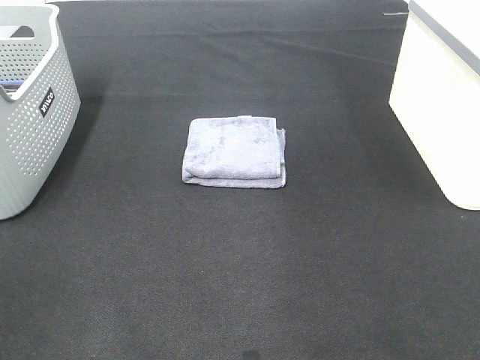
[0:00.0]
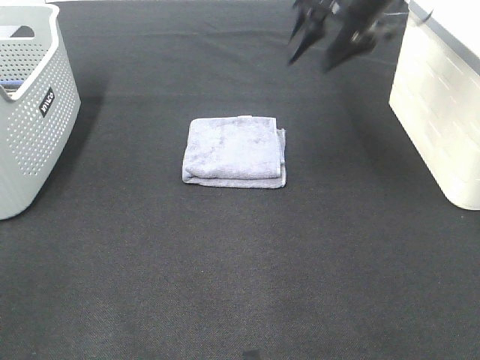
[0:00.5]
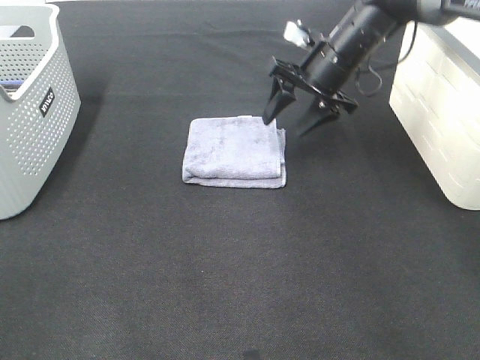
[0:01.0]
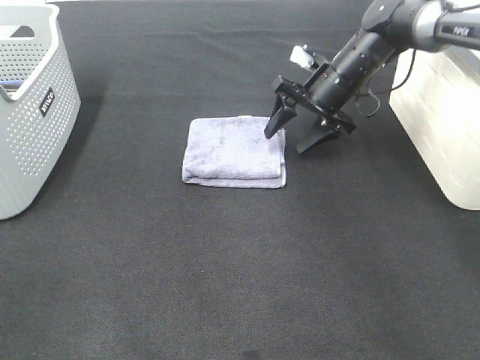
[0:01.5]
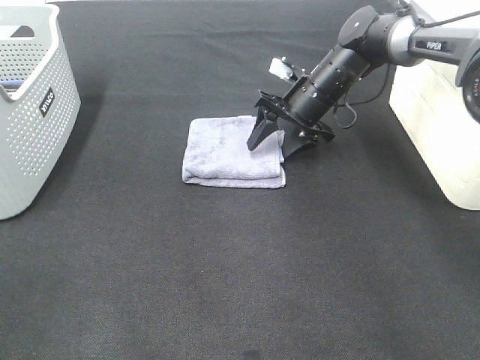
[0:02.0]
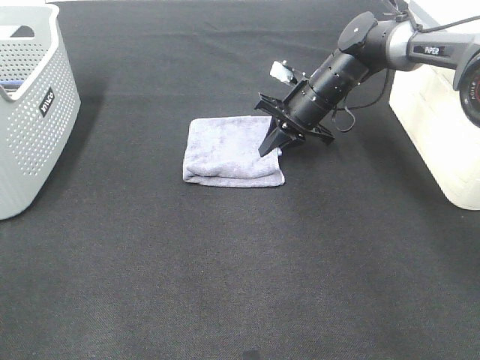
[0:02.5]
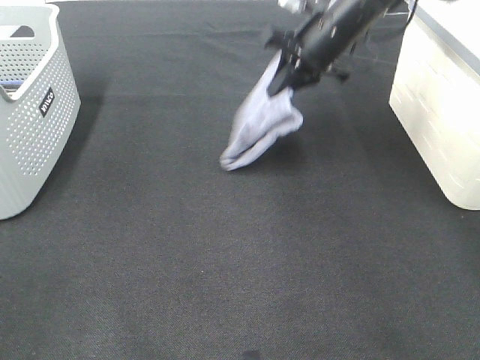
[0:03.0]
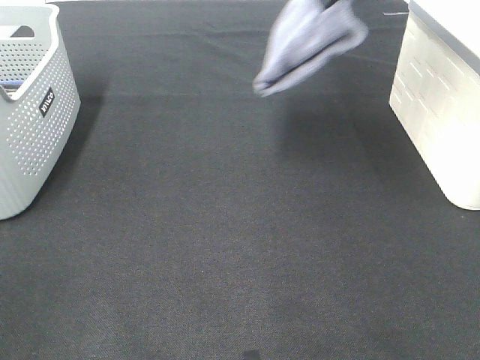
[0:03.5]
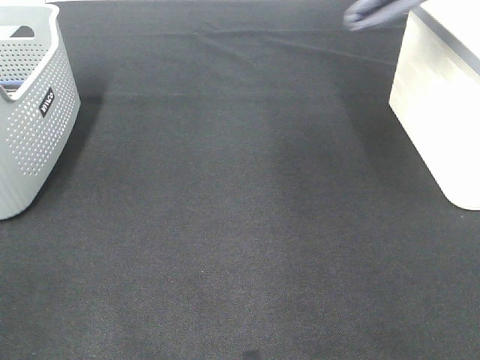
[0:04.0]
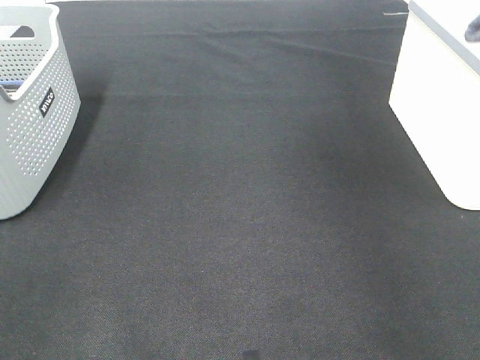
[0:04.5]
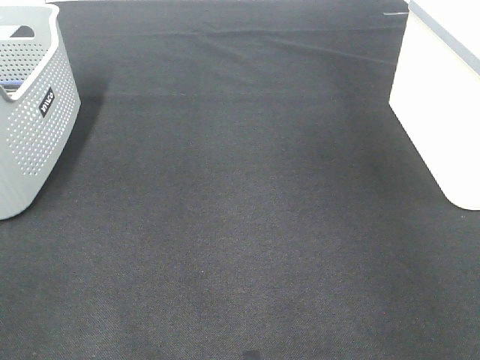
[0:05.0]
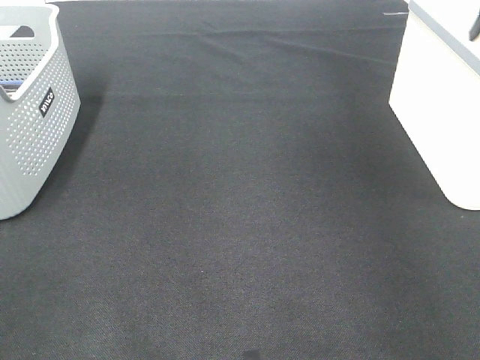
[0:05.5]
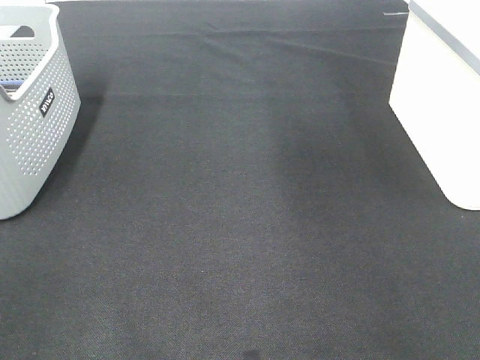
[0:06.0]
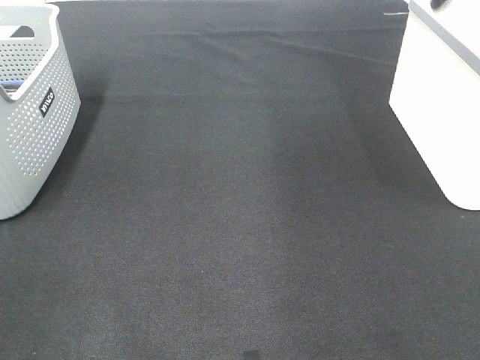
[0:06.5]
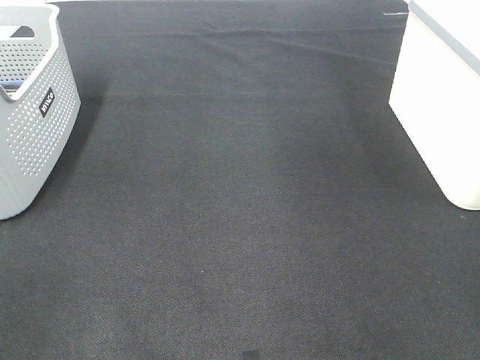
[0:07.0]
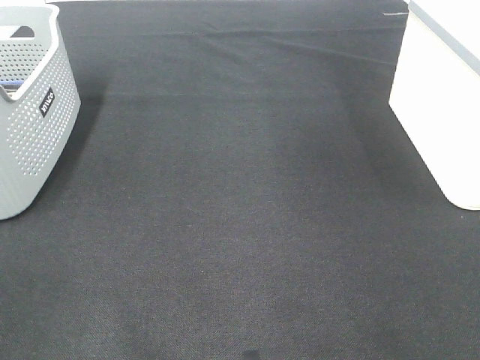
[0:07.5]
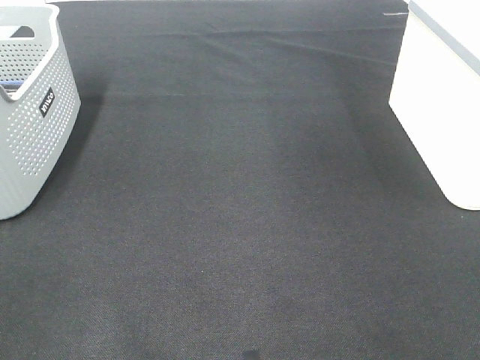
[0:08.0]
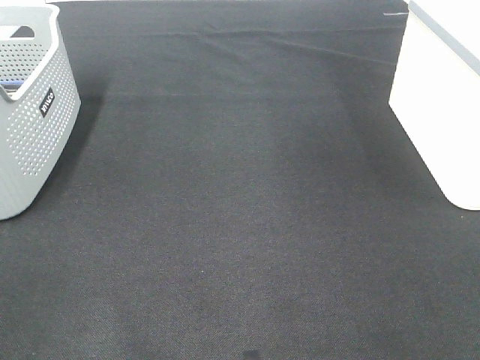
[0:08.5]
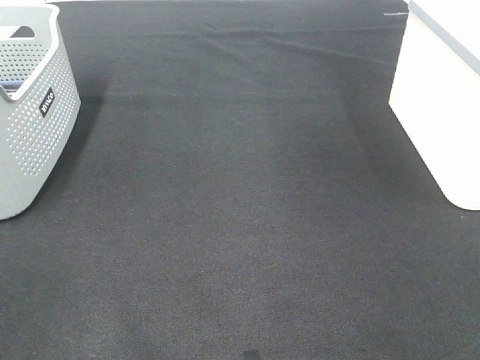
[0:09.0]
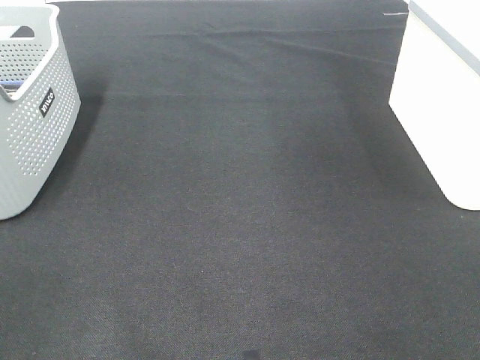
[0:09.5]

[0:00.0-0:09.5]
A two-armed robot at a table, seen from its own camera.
Step, 0:00.0 to 0:02.5: Right hand: grab the folded grey towel.
Step, 0:03.0 to 0:05.0: Right hand: place the grey towel in right basket.
0:00.0 to 0:02.0: The right gripper is displaced downward and forward by about 30 cm.
0:02.0 to 0:04.0: The right gripper moves upward and to the right, about 35 cm, and closes.
0:04.0 to 0:05.5: The right gripper shifts approximately 15 cm downward, to the right and forward, and opens.

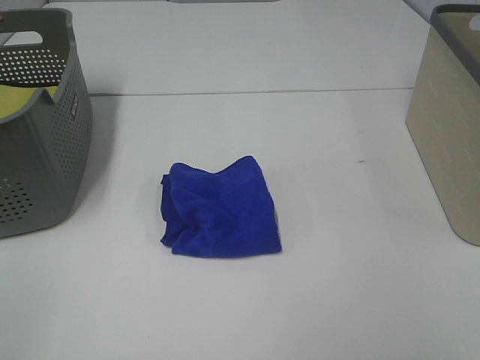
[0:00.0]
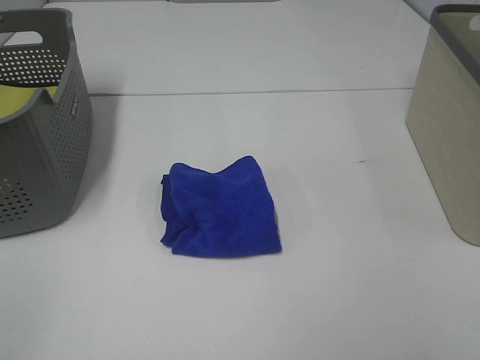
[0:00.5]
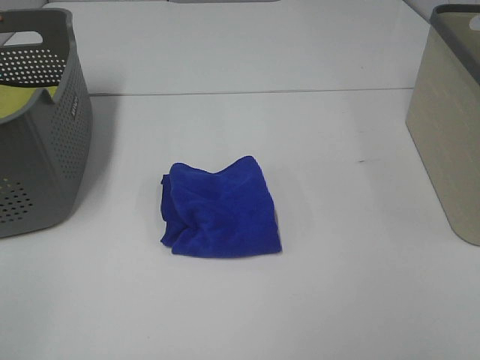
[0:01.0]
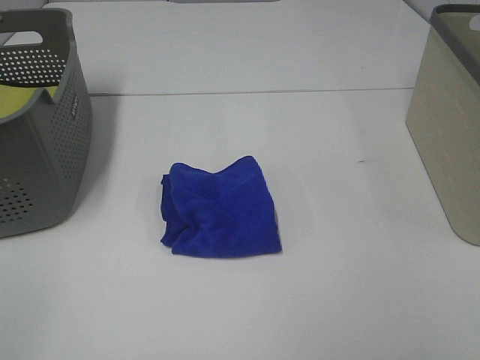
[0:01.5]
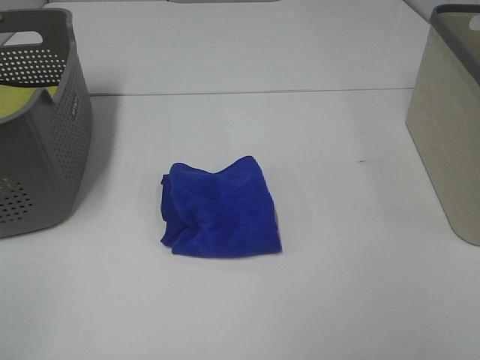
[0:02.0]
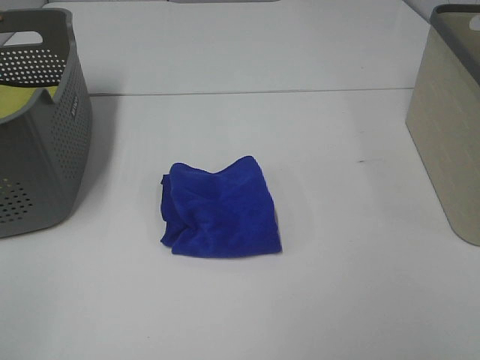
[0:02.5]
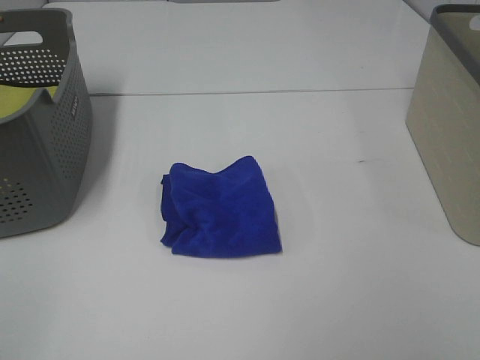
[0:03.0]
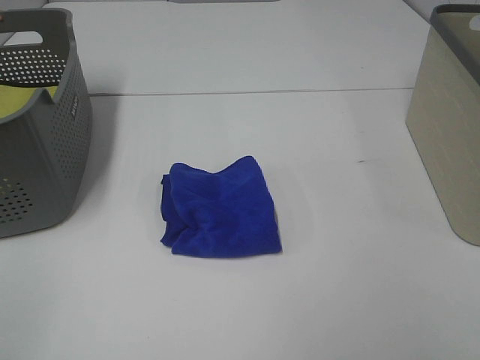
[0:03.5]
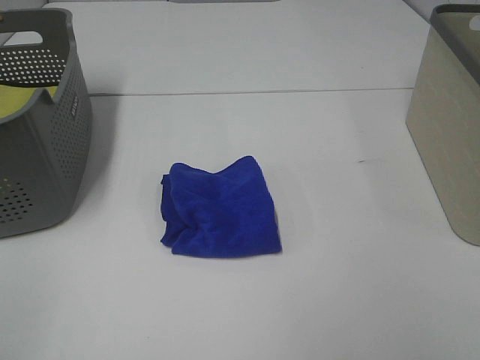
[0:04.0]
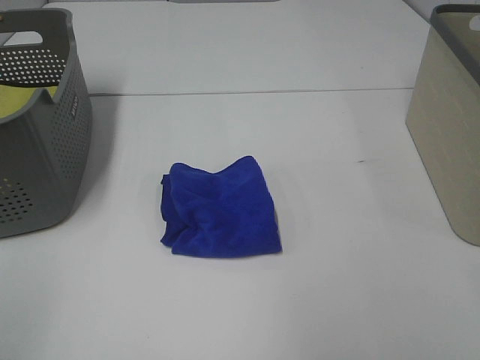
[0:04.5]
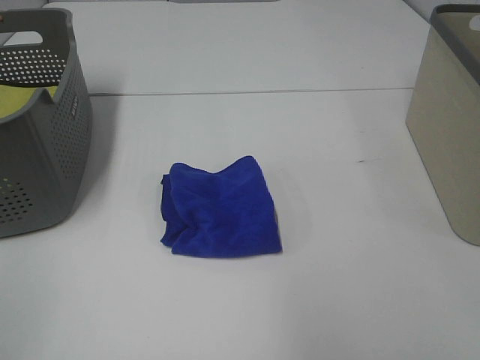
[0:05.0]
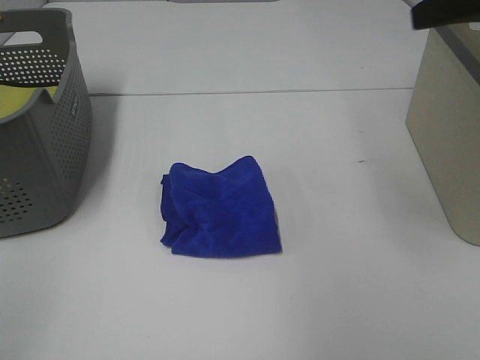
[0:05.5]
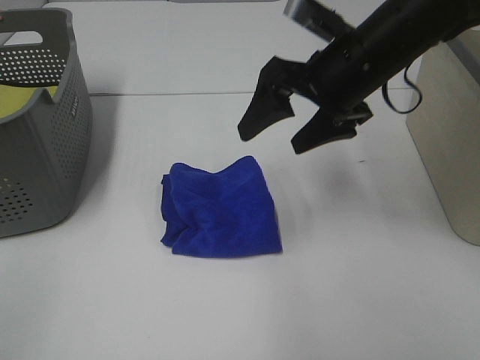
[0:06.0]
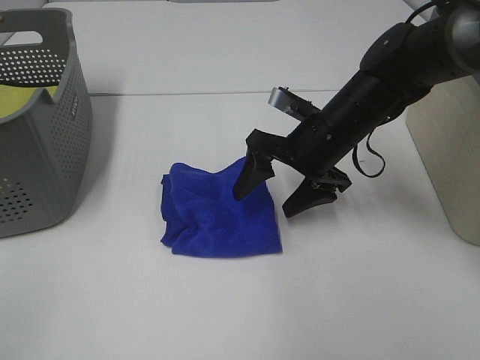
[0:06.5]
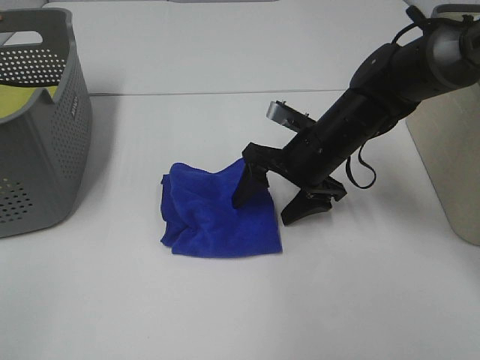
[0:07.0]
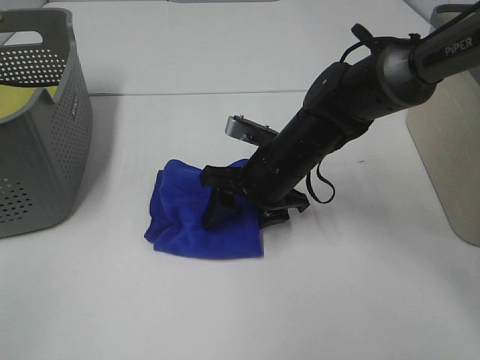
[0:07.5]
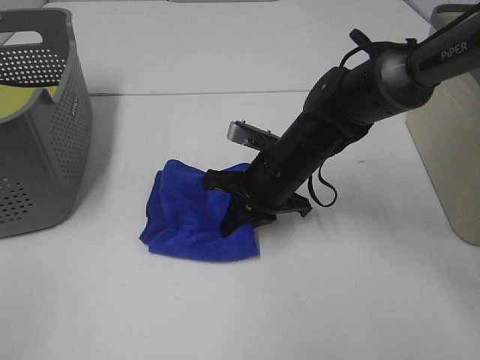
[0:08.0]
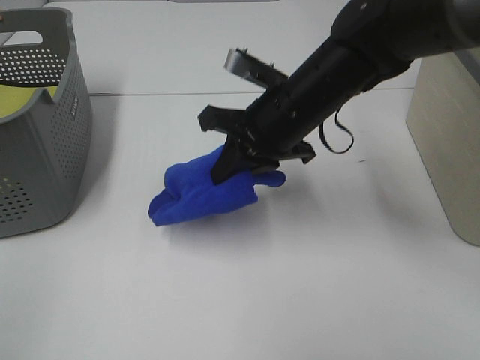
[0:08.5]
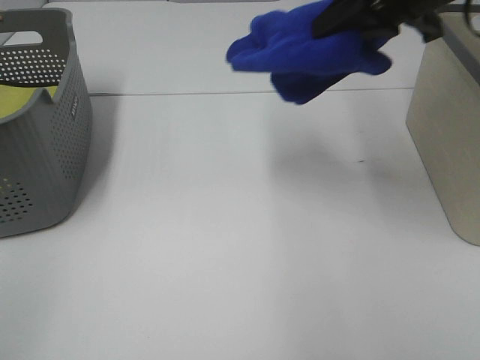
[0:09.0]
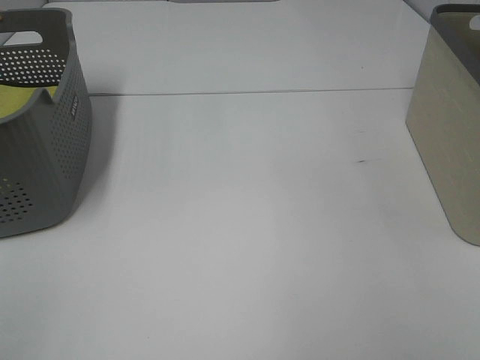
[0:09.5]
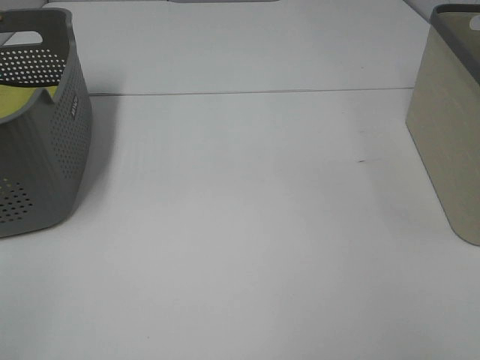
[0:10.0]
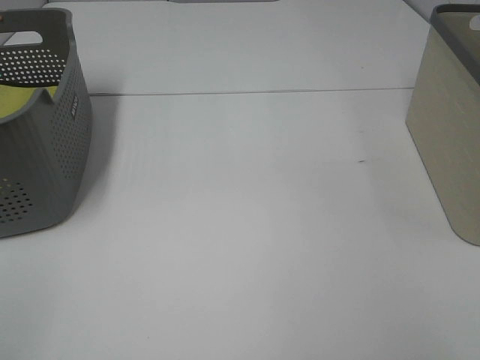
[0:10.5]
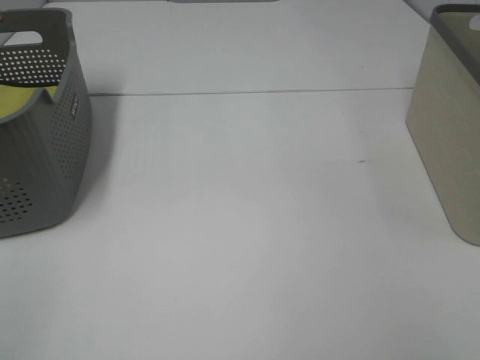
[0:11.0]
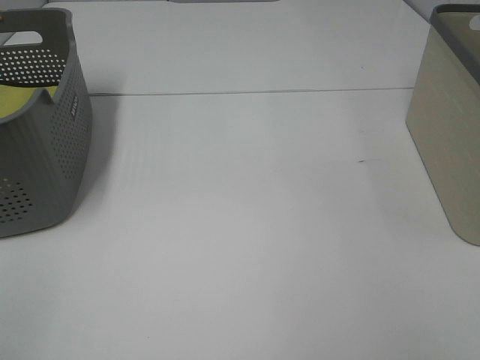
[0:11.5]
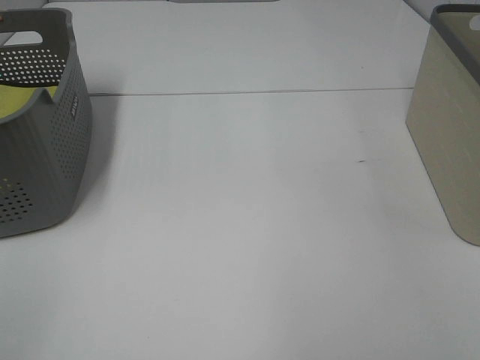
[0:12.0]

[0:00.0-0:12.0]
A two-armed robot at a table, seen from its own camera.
Step, 0:00.0 to 0:08.0: Right hand: grab the folded blue towel.
Step, 0:08.5 to 0:11.5: Right hand: place the blue towel in right basket.
0:00.0 to 0:02.0: The two grippers keep their place.
0:02.0 to 0:04.0: The two grippers keep their place.
0:04.0 to 0:06.0: The right gripper travels forward and to the left by approximately 40 cm.
0:06.0 to 0:08.0: The right gripper shifts roughly 15 cm downward and to the left, and closes up.
0:08.0 to 0:10.0: The right gripper travels to the right and upward by some 40 cm.

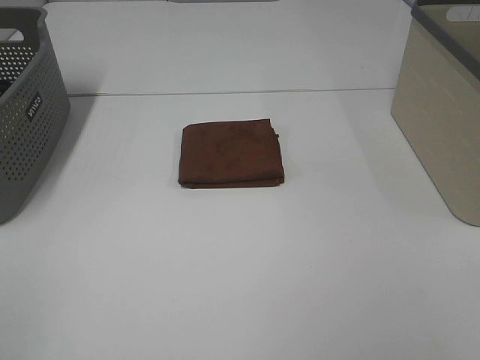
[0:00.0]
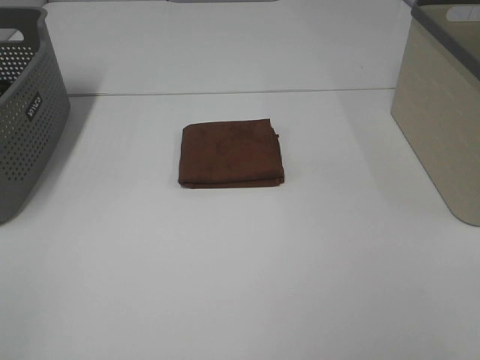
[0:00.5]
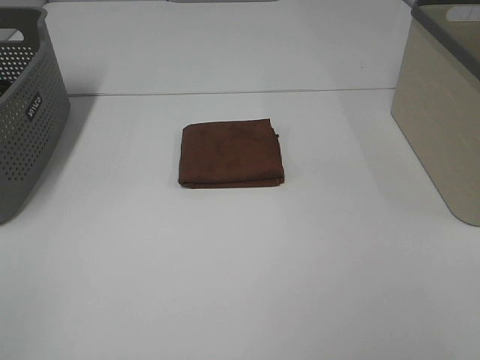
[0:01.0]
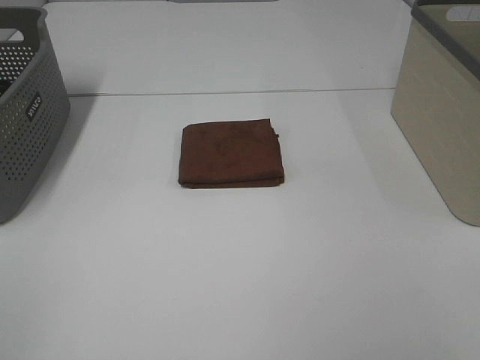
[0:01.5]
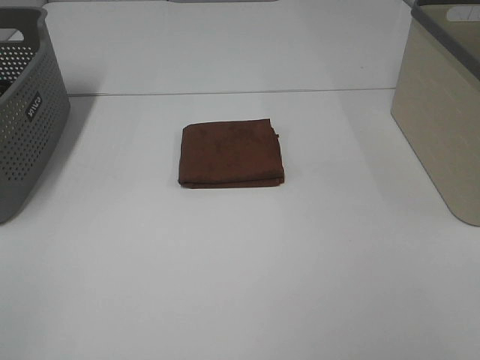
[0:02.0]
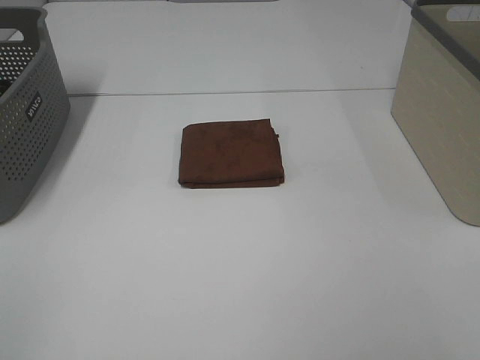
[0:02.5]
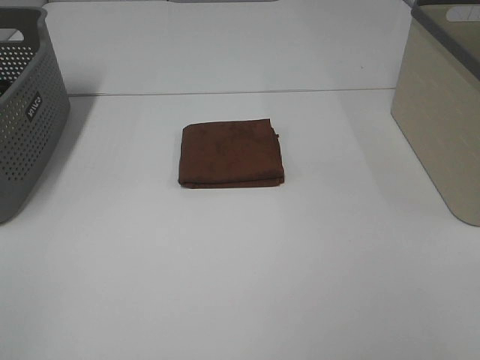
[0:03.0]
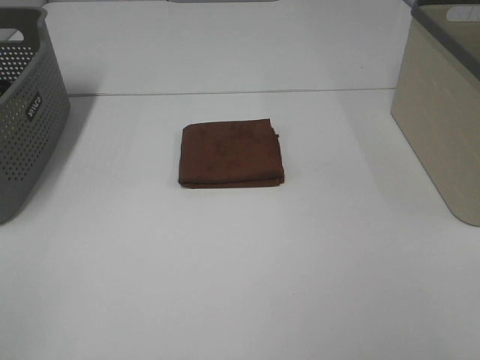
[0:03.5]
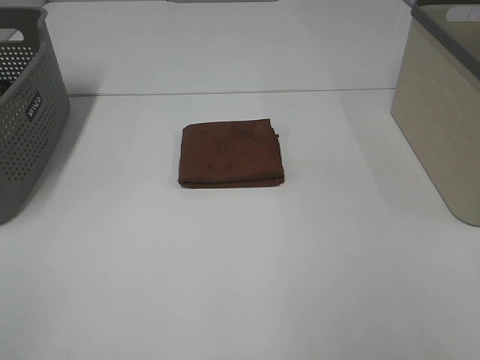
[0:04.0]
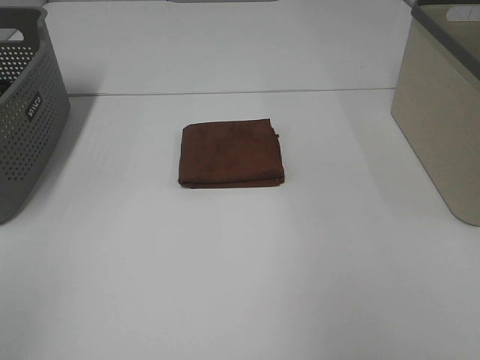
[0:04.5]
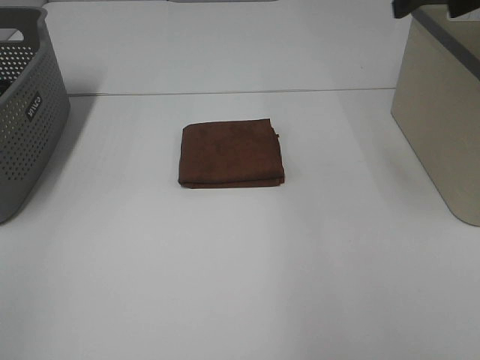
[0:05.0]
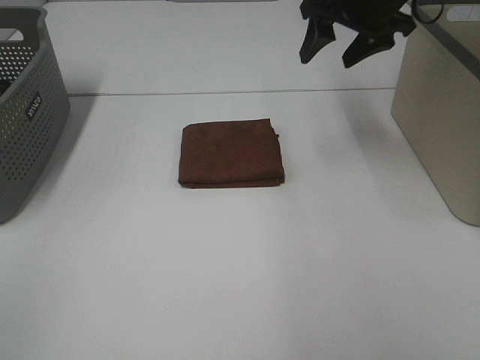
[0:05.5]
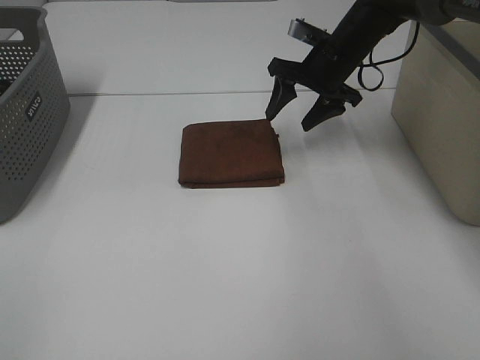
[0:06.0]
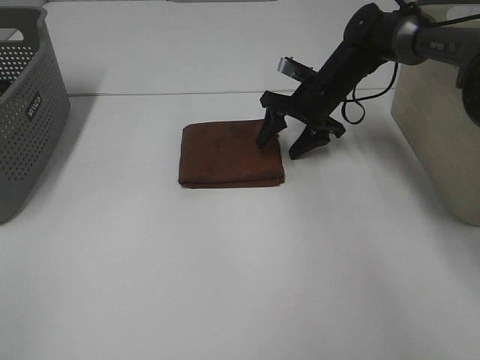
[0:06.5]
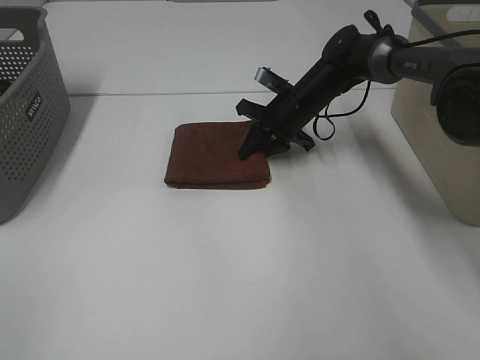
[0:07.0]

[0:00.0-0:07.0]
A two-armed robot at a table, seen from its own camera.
0:00.0 to 0:03.5: The two grippers keep their place.
0:05.0 to 0:07.0: The right gripper heads downward, forward and to the left, covering approximately 35 cm, and closes.
